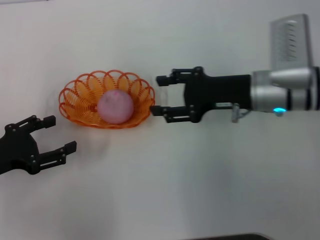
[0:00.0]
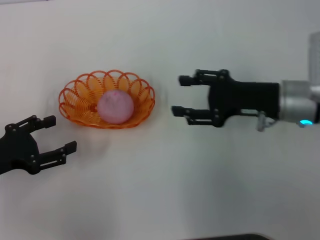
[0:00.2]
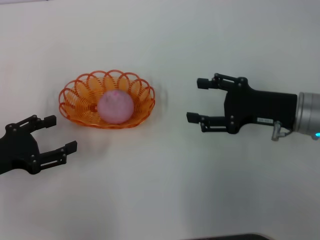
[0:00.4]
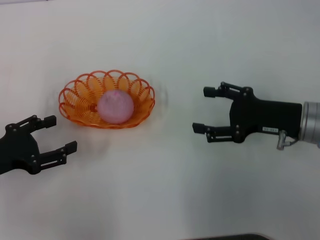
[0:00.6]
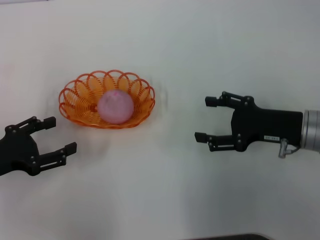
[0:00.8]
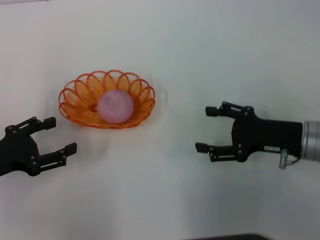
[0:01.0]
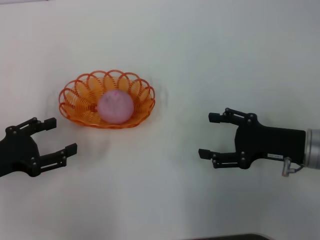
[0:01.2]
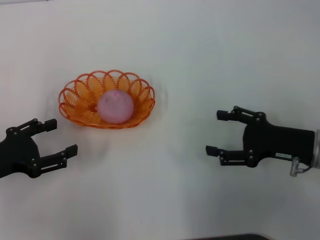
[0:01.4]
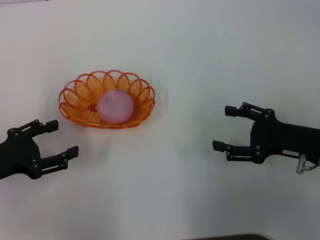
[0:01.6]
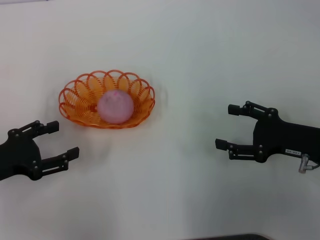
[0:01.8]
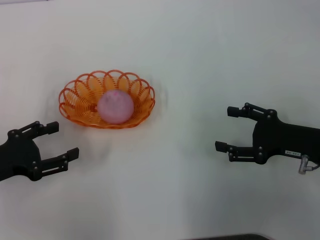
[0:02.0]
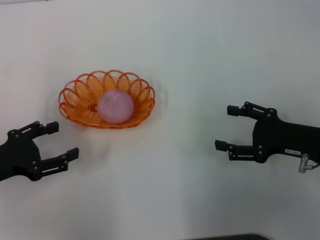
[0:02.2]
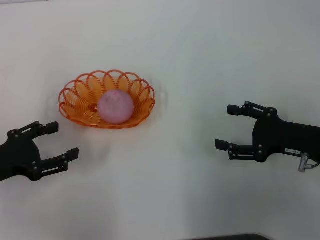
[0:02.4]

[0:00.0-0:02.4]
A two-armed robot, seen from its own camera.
0:00.0 to 0:01.2: The right gripper goes approximately 10 cm backward and to the right.
0:01.2 to 0:02.4: The grippers move only a little.

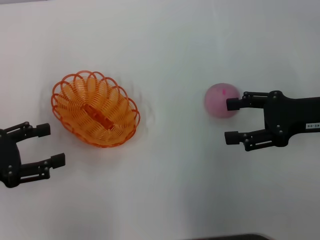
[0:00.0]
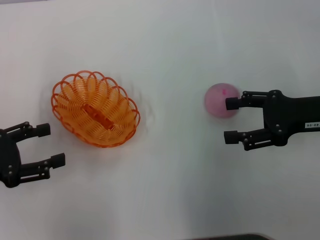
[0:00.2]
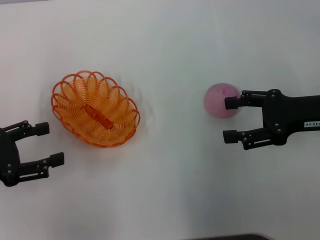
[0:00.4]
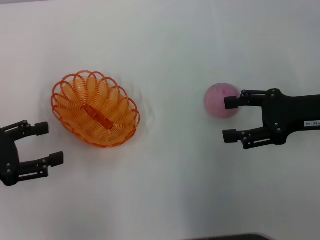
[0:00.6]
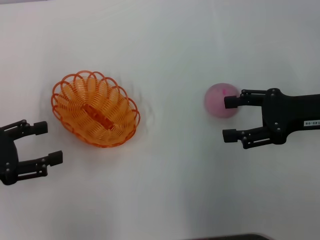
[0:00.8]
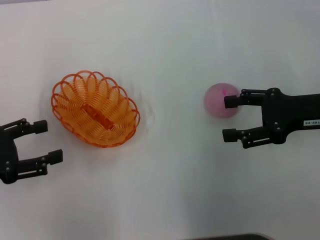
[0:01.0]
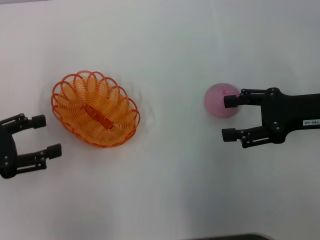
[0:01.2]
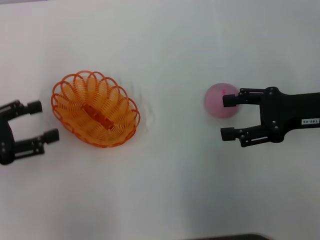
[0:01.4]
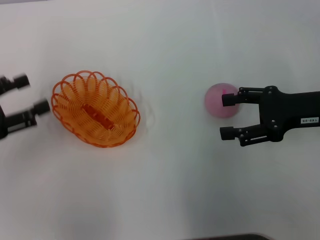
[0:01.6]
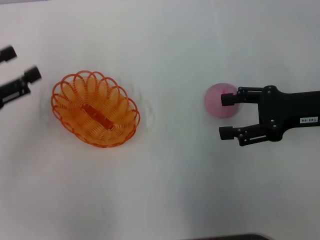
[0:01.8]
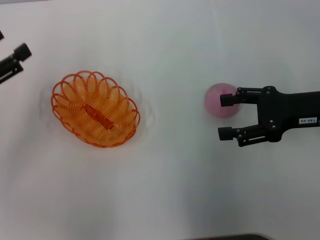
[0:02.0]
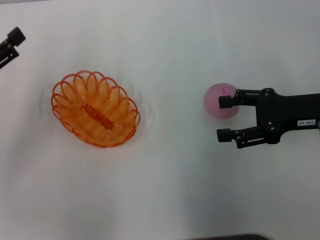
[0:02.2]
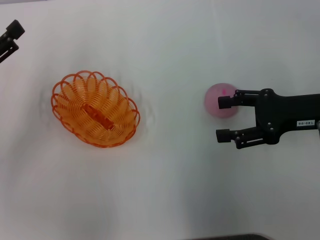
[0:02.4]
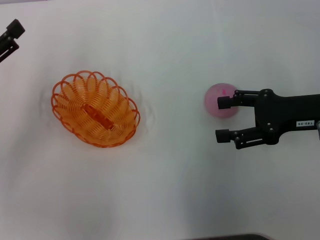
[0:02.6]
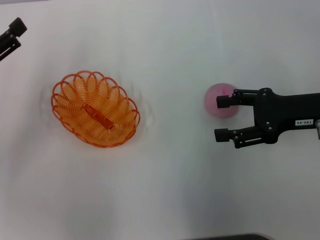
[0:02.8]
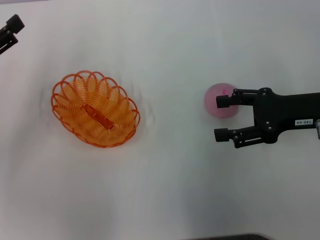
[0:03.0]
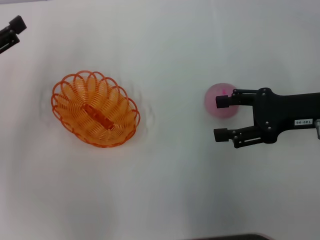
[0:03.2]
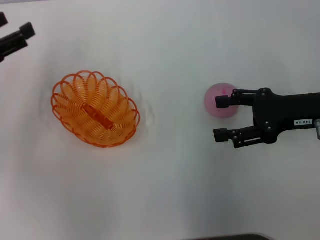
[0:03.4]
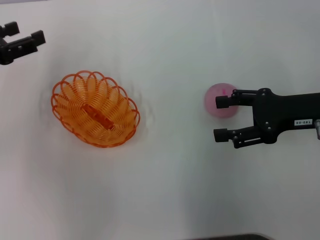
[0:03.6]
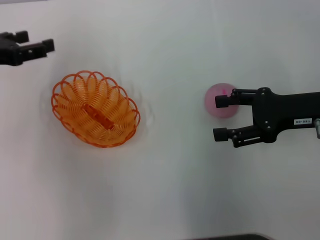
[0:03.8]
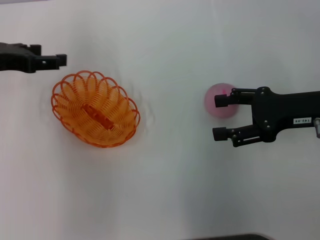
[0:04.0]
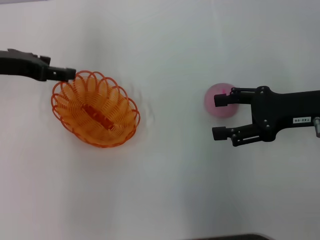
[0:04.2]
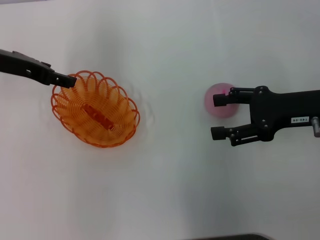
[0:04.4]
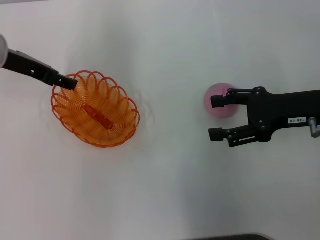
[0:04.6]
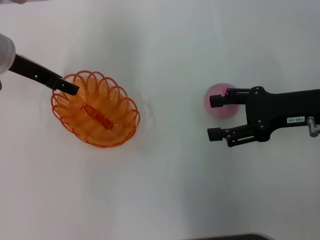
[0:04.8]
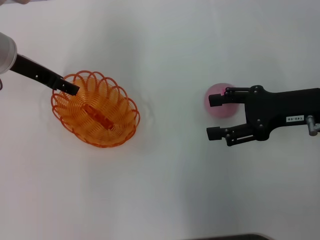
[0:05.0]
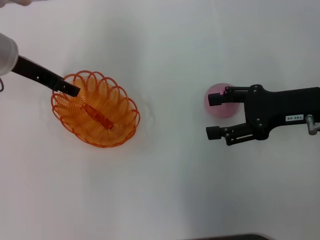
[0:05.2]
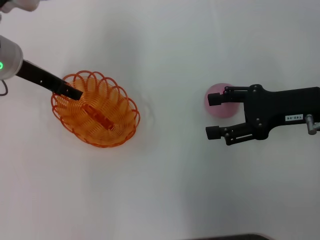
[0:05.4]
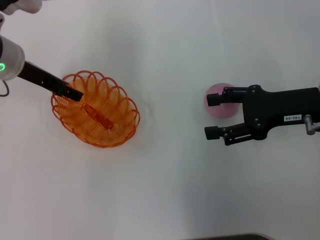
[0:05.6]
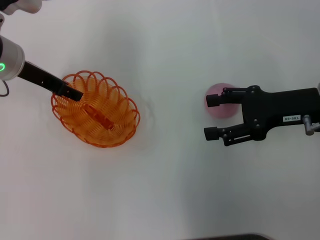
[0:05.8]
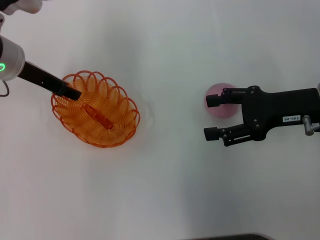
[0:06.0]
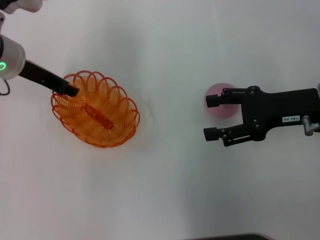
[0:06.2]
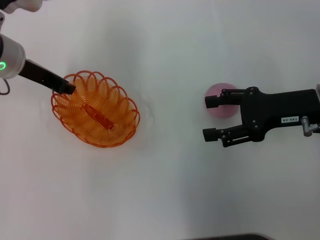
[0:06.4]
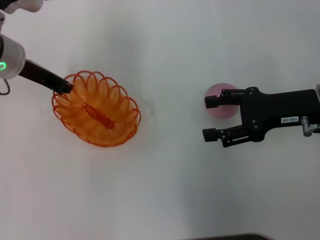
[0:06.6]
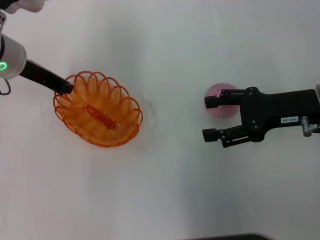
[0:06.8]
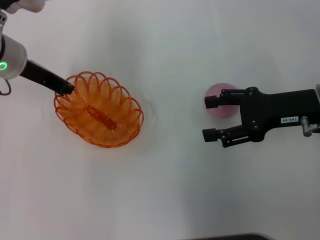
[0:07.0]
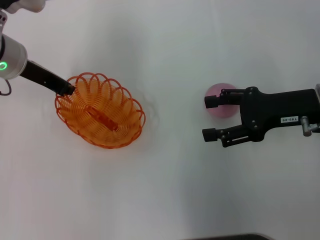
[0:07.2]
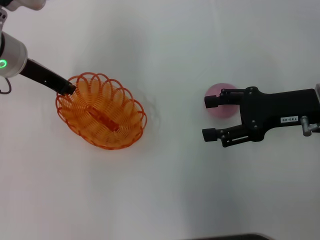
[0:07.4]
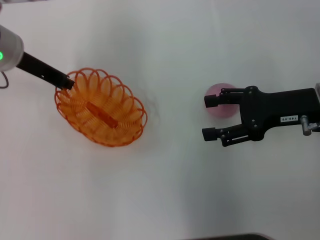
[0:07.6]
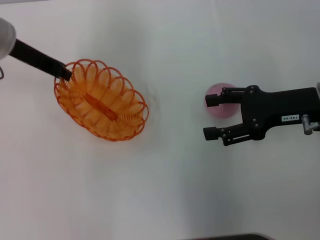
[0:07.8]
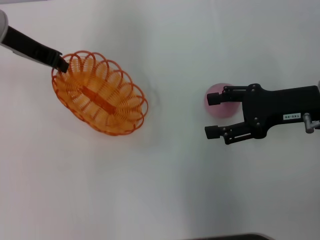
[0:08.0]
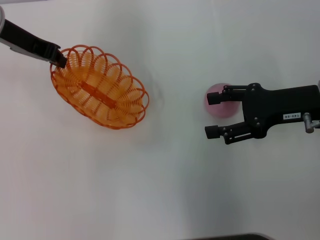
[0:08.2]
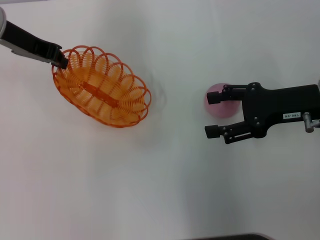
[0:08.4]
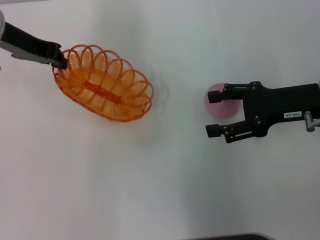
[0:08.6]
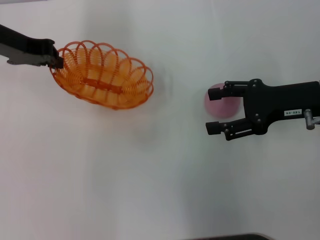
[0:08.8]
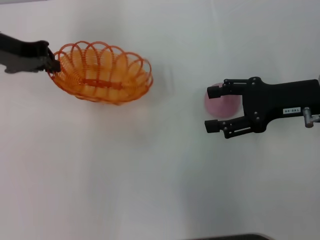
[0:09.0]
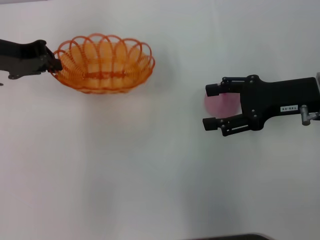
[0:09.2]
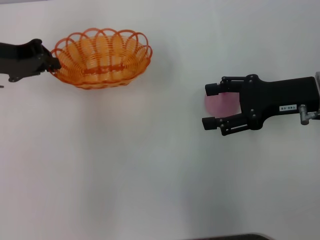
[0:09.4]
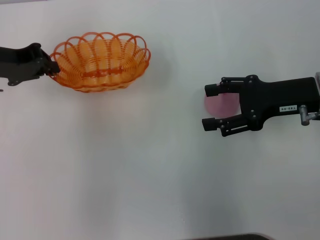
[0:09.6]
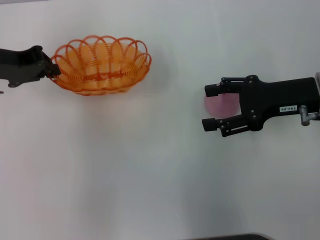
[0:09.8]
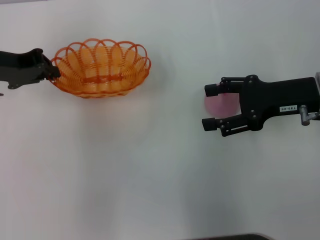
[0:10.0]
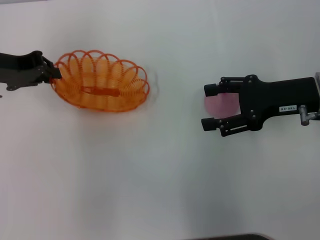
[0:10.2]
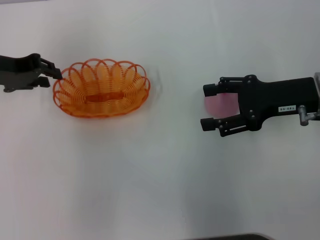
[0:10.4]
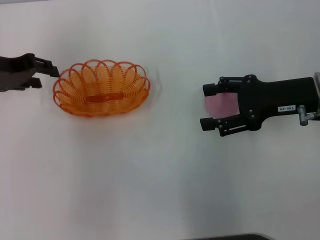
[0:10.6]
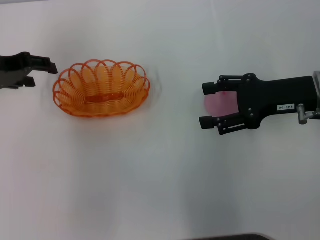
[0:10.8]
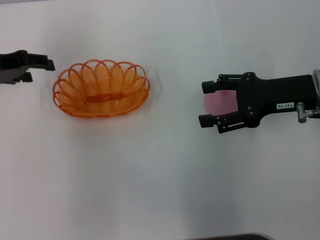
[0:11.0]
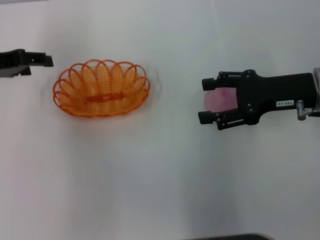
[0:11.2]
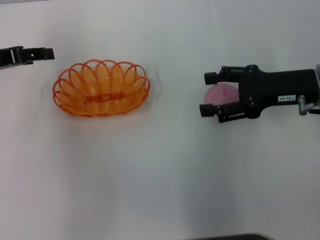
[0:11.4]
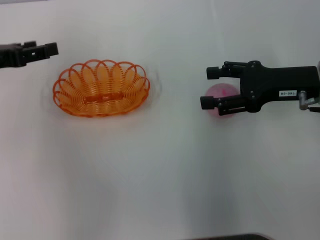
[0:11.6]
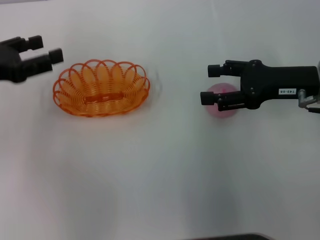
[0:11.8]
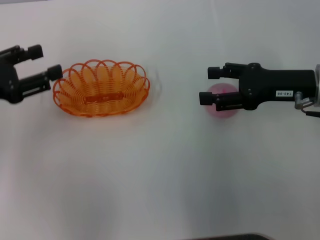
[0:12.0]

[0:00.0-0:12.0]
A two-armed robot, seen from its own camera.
Step, 0:00.0 to 0:08.4: Pick up the basket with the left gripper.
Step, 0:08.6 to 0:10.6: Place the basket in the center of view with the left gripper.
0:00.0 to 0:01.6: The grippers stay close to where they were, moving slightly.
0:03.0 to 0:04.4: The left gripper heads forward and to the right, covering approximately 10 cm.
0:04.4 to 0:06.0: The grippers make only small movements.
0:06.0 to 0:07.6: The left gripper closes its fingers.
0:09.0 to 0:10.4: The grippers stay close to where they were, moving slightly.
0:10.4 to 0:12.0: The left gripper goes some 10 cm backward, and opens its fingers.

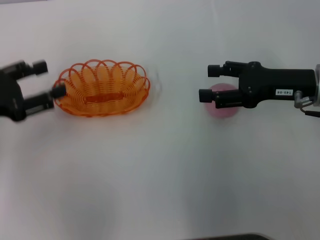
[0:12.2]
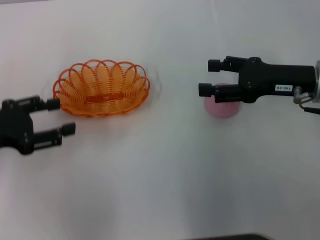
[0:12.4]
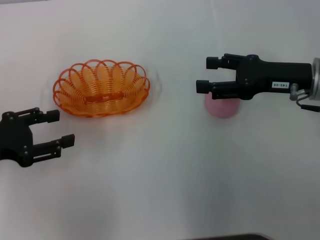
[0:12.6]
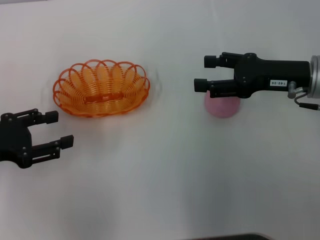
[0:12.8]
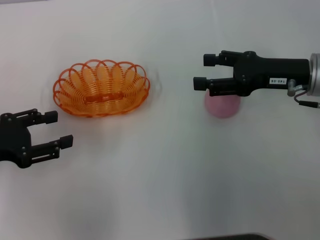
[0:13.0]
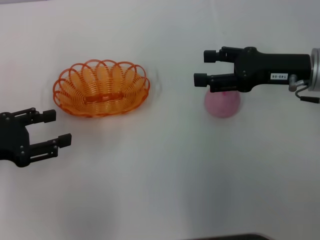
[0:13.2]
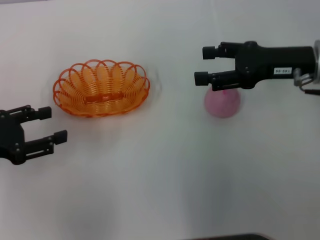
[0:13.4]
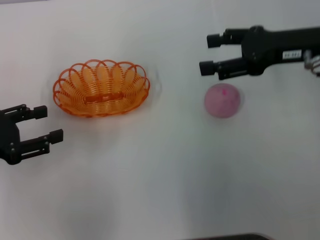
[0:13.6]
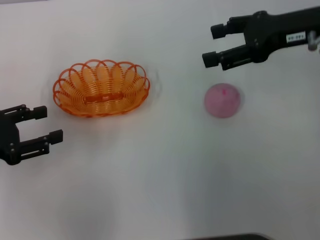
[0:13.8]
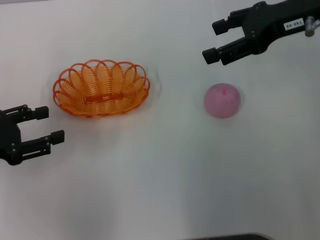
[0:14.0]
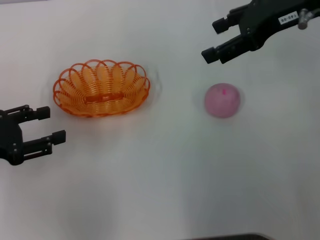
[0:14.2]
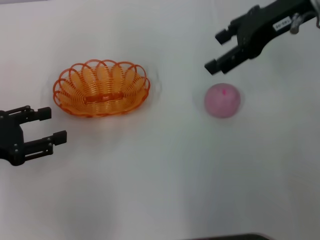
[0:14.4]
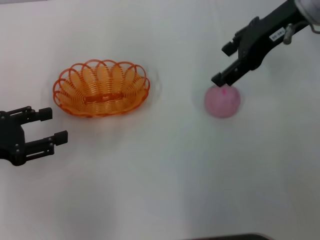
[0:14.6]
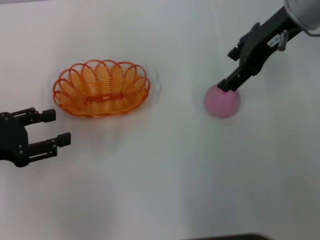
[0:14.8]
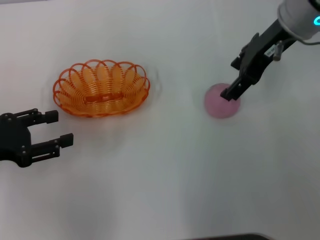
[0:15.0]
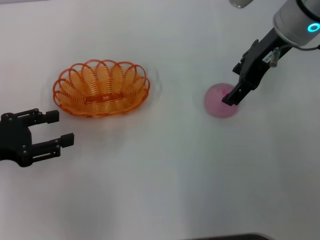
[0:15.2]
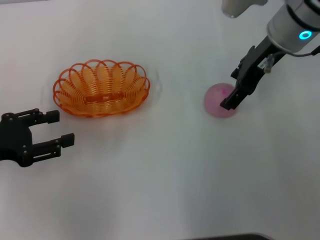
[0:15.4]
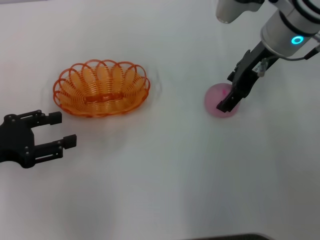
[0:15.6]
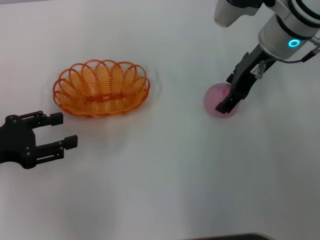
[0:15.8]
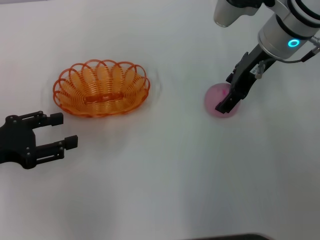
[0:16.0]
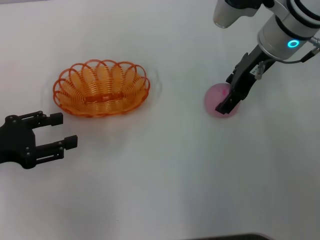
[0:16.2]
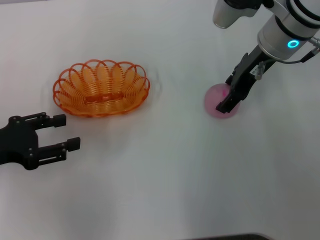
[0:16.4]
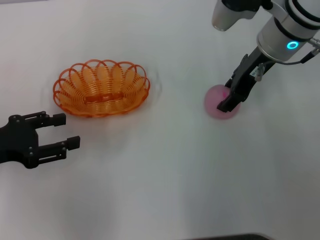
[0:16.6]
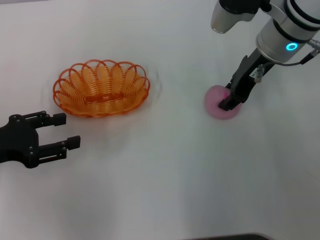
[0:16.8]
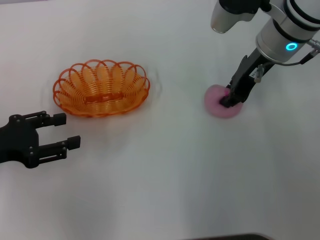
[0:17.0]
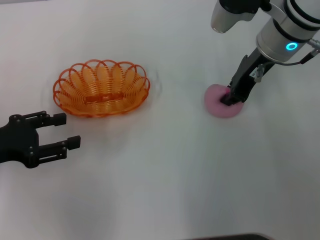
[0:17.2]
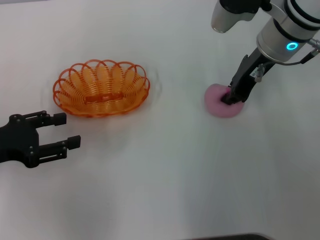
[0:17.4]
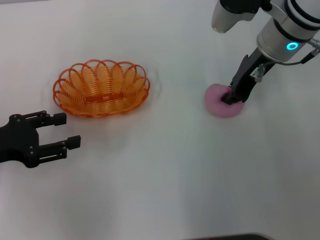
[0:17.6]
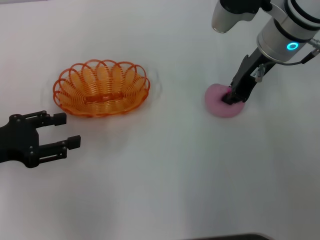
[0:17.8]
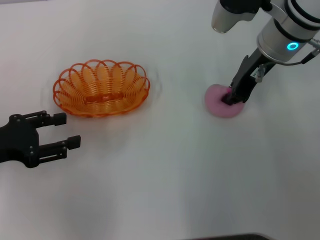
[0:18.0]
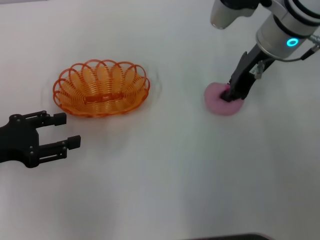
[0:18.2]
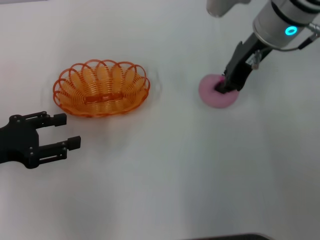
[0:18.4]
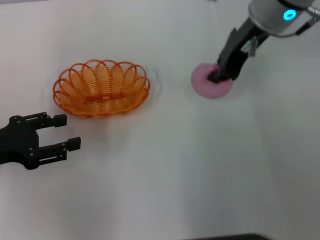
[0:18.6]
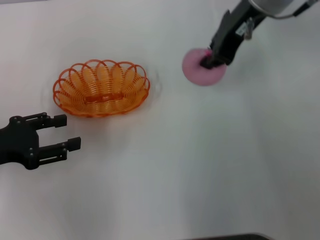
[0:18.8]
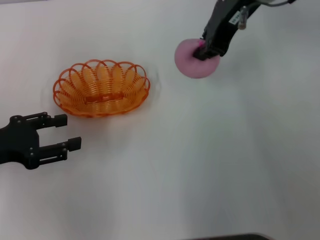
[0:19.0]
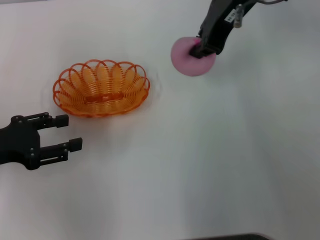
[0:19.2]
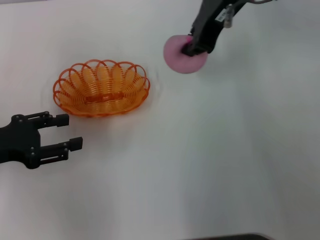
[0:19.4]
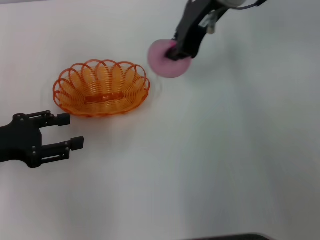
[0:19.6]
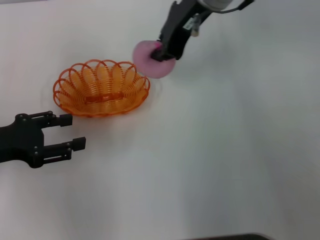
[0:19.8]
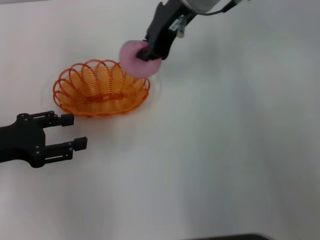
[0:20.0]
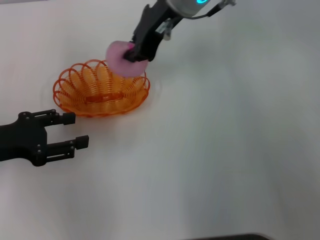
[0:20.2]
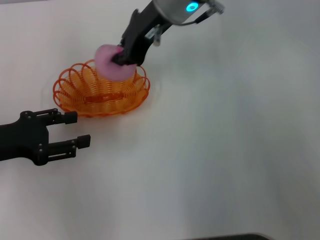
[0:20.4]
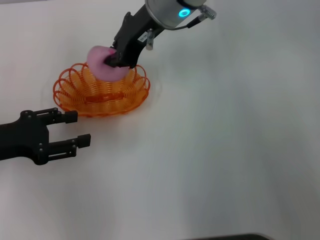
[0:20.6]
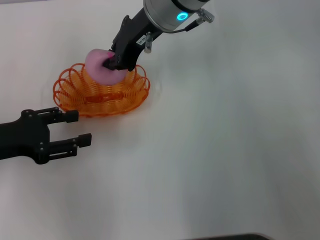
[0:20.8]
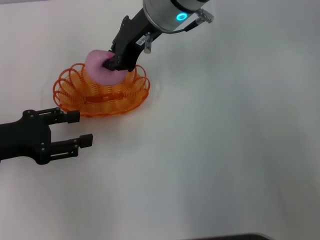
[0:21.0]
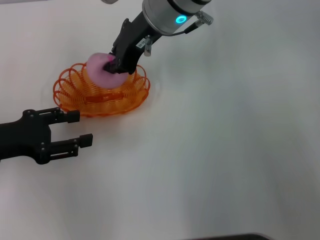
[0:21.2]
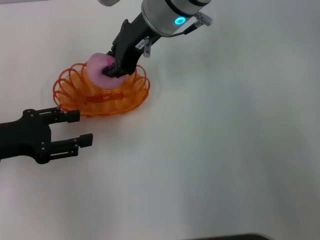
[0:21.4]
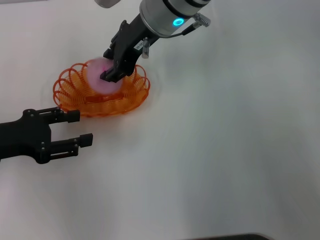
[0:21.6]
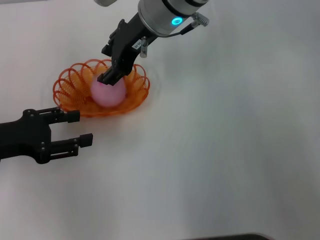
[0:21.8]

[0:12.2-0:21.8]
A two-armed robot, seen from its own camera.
Step, 0:12.2 to 0:18.6: Pick up the peach with the right gripper.
0:12.2 to 0:13.8: The right gripper travels upward by some 10 cm.
0:13.8 to 0:15.4: The right gripper is displaced to the left by some 5 cm.
0:15.4 to 0:17.0: The right gripper closes its fingers.
0:17.0 to 0:18.6: The right gripper is displaced upward by roughly 5 cm.
0:18.6 to 0:20.2: The right gripper travels to the left by some 10 cm.
0:20.2 to 0:21.8: The right gripper opens up.
